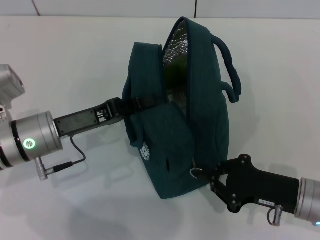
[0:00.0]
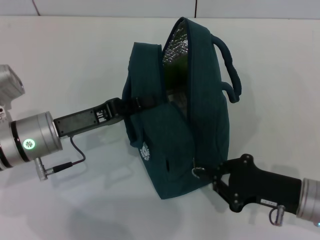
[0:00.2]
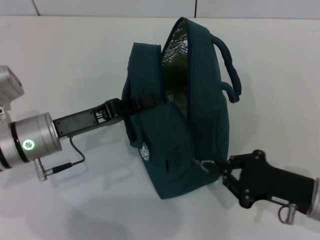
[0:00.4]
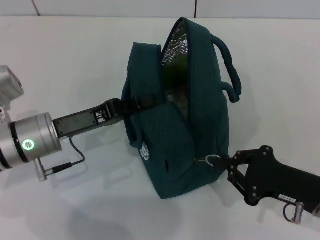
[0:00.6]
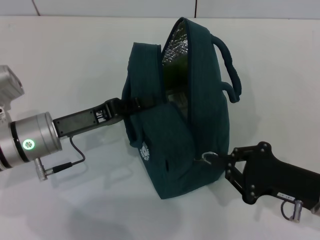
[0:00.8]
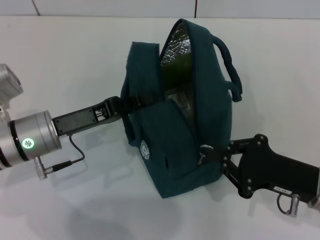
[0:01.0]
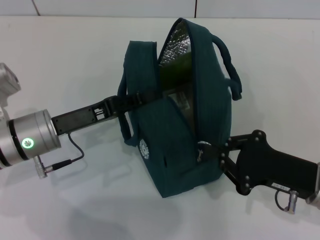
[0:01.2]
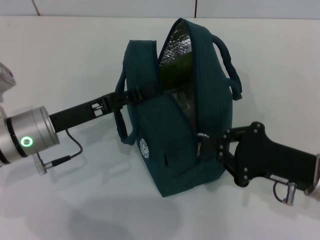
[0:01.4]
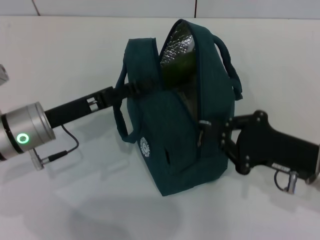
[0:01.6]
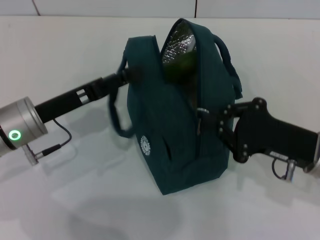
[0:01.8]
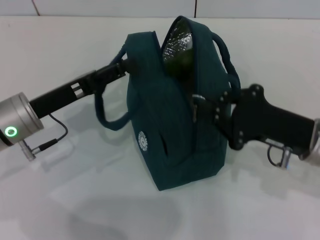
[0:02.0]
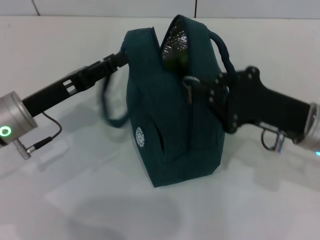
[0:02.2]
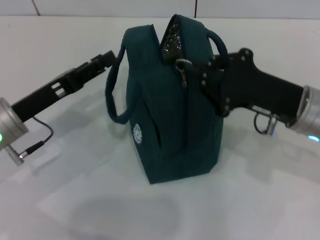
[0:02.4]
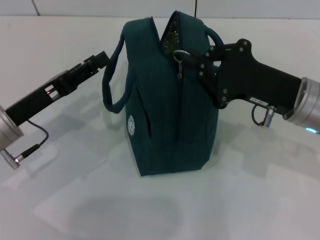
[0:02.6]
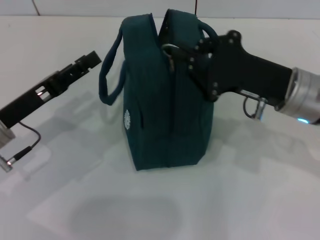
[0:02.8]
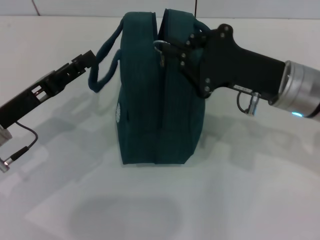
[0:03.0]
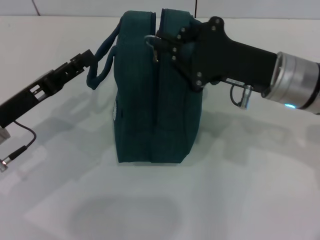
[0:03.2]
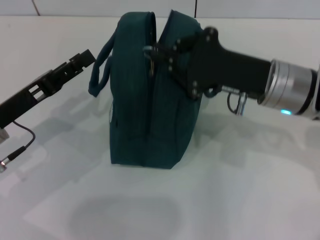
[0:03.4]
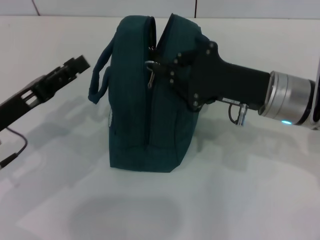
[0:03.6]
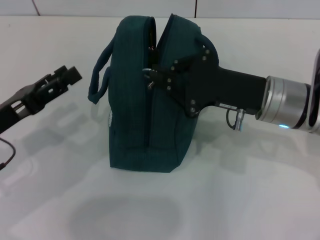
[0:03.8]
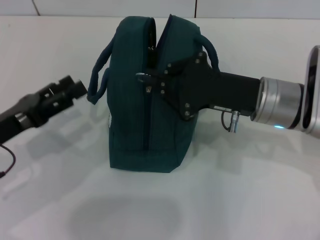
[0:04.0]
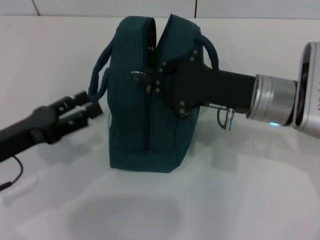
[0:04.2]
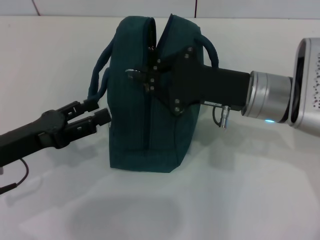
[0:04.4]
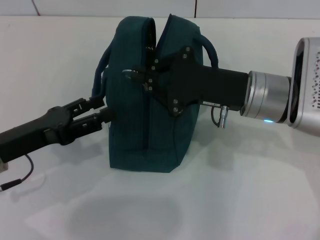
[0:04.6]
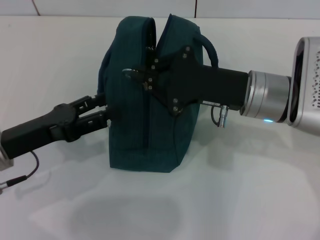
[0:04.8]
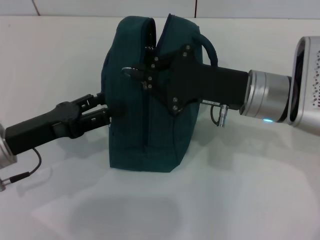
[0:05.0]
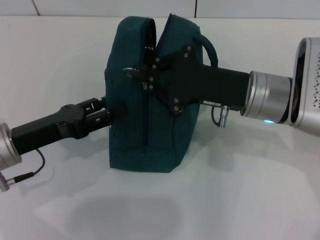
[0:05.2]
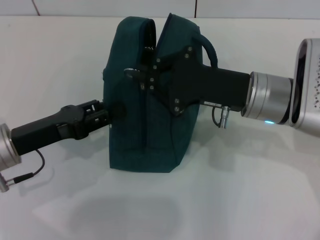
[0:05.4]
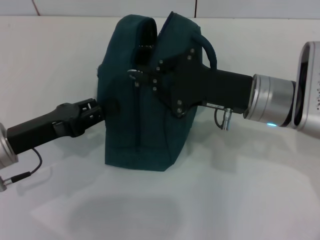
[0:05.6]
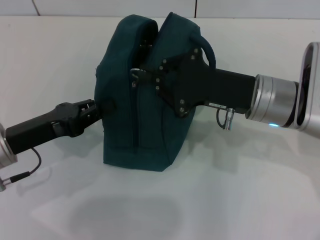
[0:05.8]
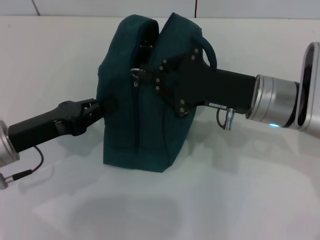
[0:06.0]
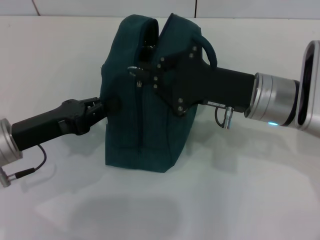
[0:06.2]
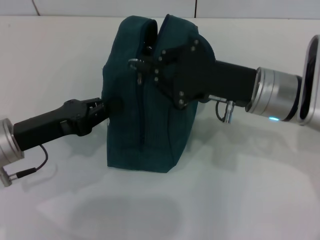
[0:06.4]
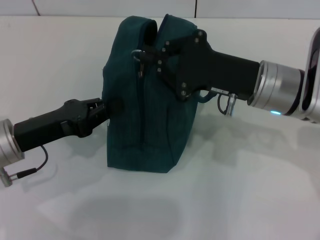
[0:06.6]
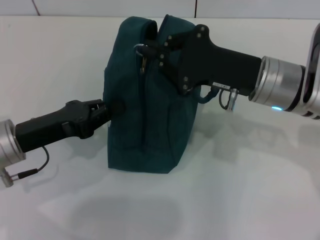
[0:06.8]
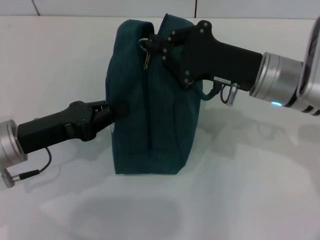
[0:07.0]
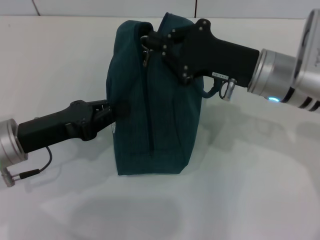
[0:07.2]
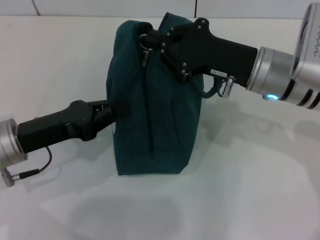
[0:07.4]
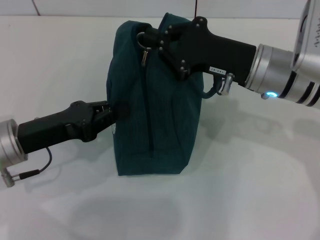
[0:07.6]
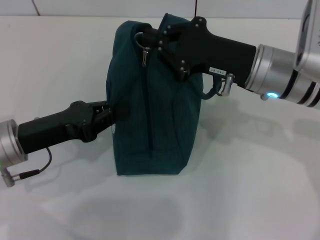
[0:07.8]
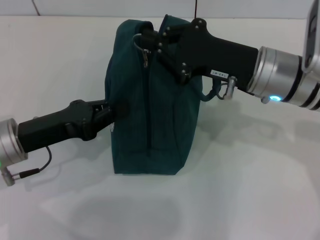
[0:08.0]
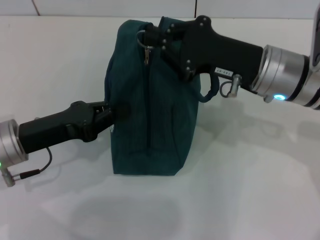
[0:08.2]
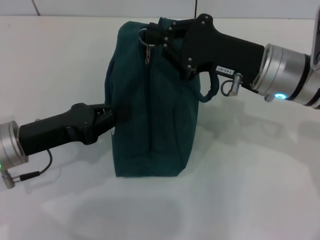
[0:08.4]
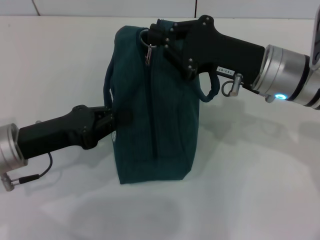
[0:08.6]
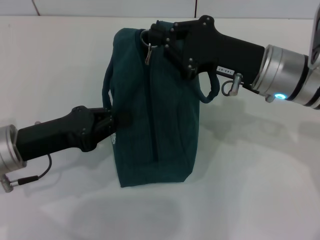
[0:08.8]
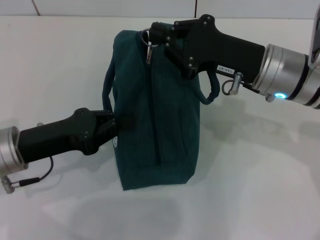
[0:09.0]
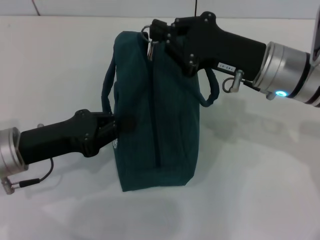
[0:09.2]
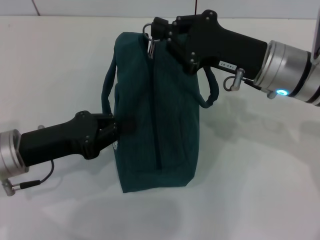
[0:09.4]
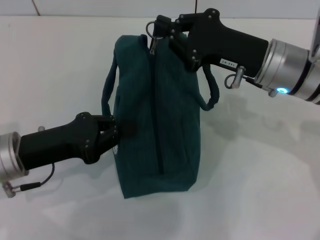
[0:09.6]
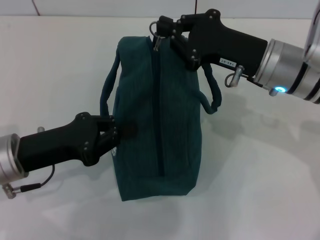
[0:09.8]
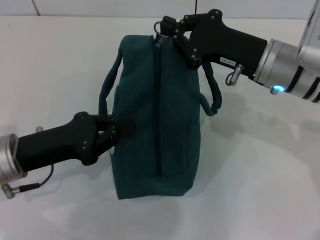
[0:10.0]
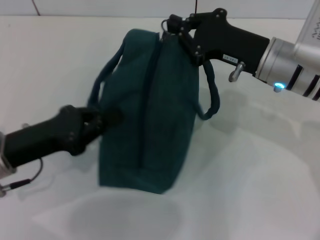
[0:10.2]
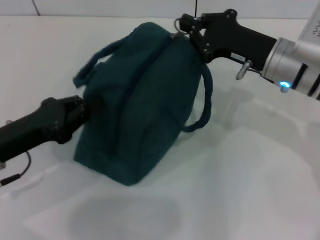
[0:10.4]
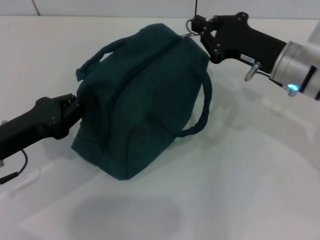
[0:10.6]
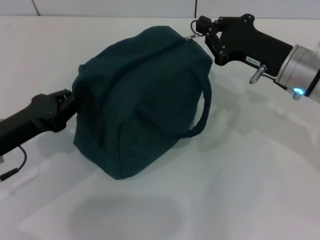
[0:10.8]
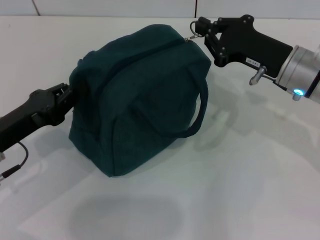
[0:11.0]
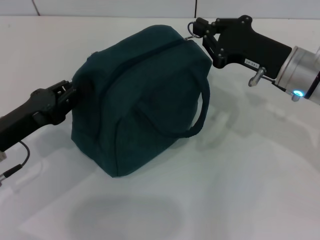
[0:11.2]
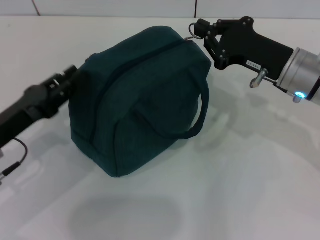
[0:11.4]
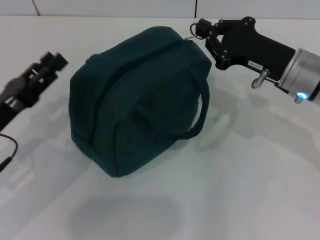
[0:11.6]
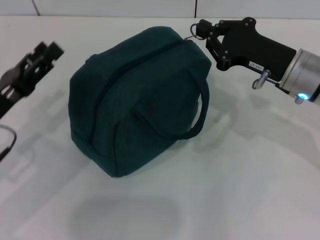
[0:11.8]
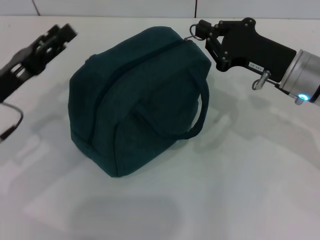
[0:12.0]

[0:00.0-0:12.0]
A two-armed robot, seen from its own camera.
Step, 0:00.0 to 0:02.0: Hold the lunch bag with your left hand.
0:00.0 to 0:01.6: The left gripper opens its fingers.
0:01.6 to 0:03.0: The right gripper heads forward, upward and to the left, covering roughly 10 cm, while the left gripper moves some 5 cm, and opens up.
0:04.4 to 0:06.0: The left gripper closes its fingers.
0:06.0 to 0:09.0: There are only small adjustments of the grippers.
0:10.4 to 0:12.0: The left gripper opens up.

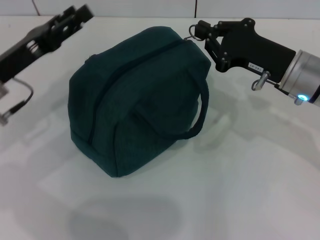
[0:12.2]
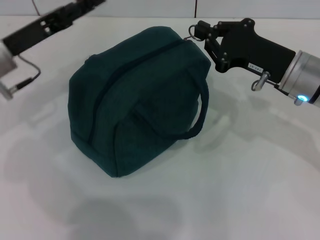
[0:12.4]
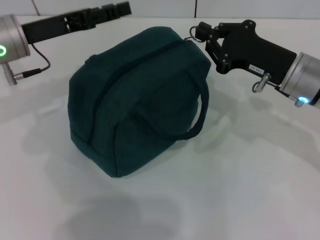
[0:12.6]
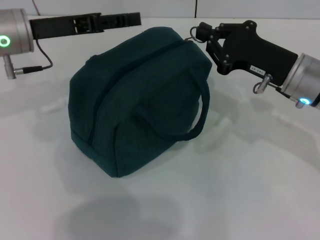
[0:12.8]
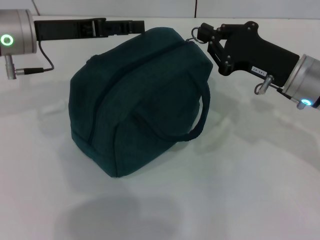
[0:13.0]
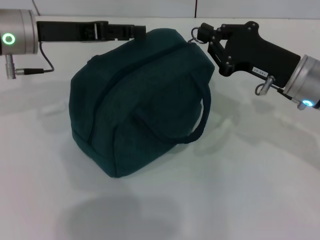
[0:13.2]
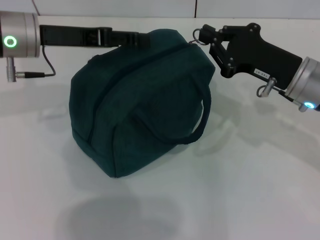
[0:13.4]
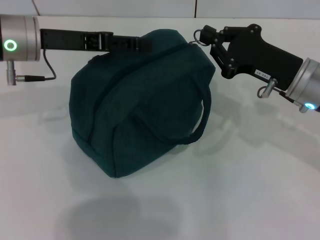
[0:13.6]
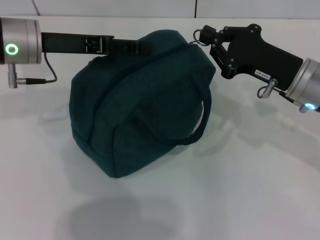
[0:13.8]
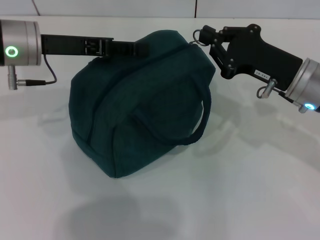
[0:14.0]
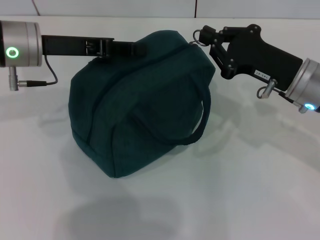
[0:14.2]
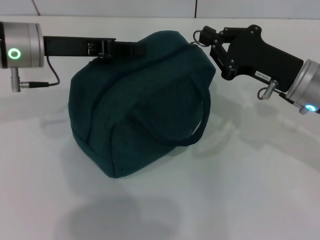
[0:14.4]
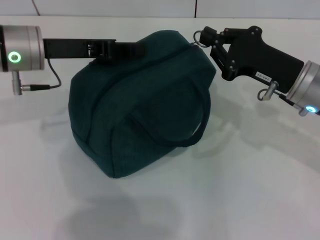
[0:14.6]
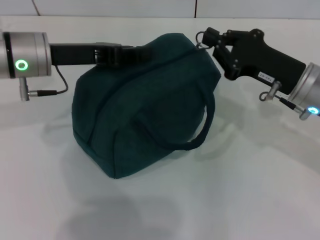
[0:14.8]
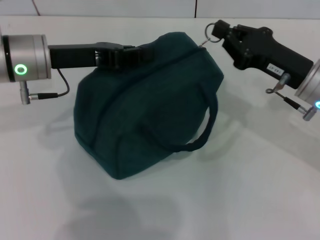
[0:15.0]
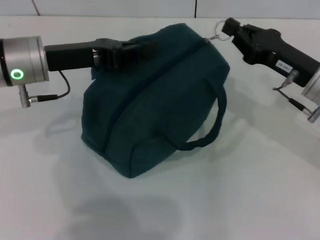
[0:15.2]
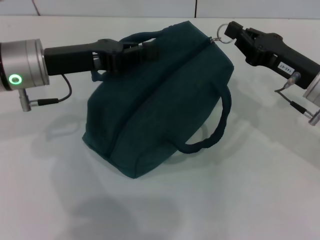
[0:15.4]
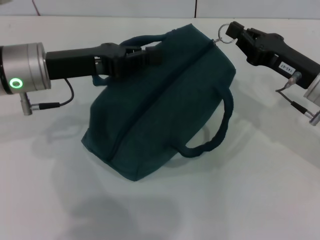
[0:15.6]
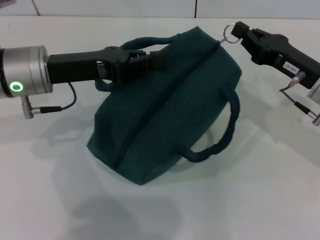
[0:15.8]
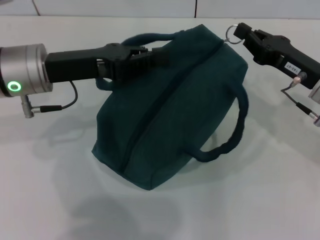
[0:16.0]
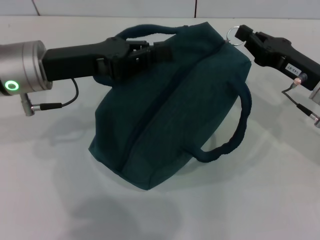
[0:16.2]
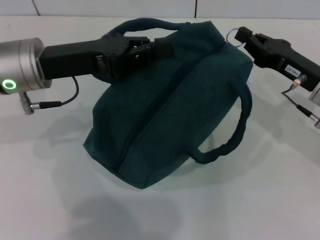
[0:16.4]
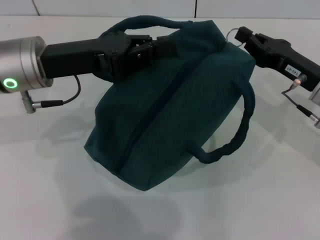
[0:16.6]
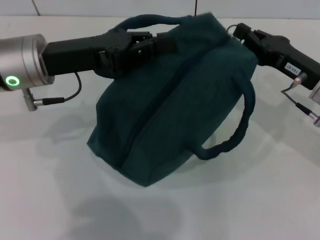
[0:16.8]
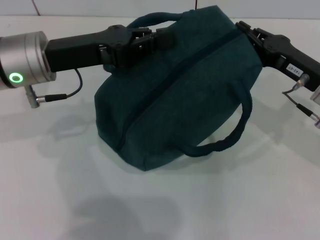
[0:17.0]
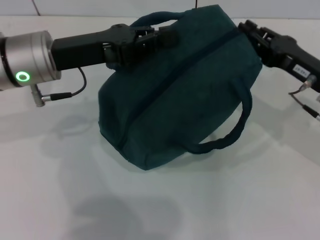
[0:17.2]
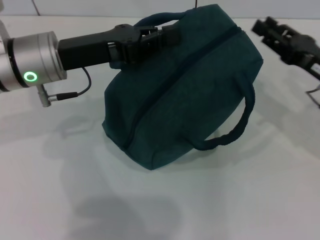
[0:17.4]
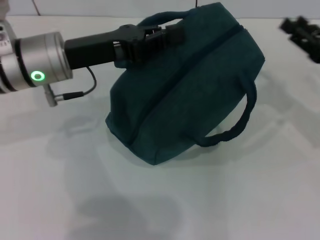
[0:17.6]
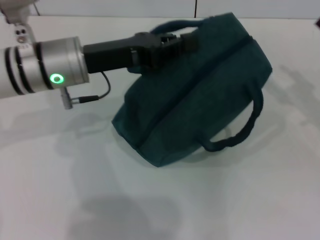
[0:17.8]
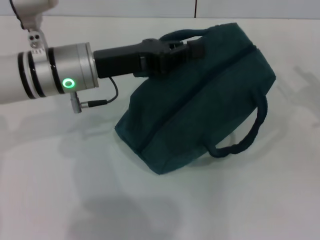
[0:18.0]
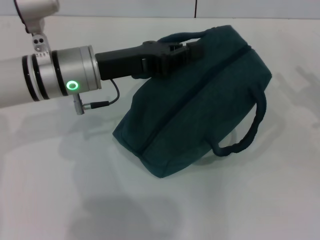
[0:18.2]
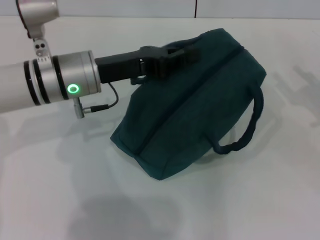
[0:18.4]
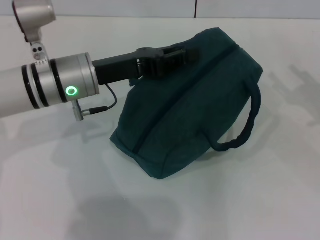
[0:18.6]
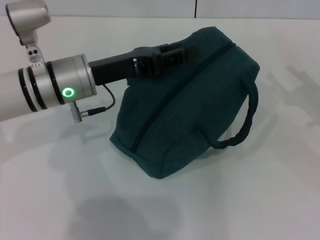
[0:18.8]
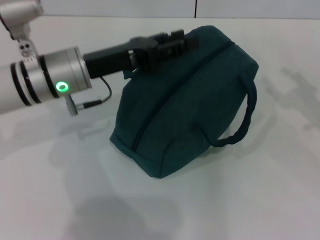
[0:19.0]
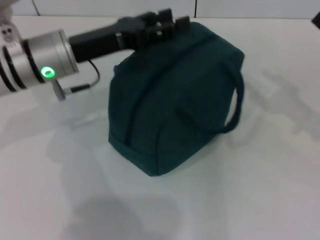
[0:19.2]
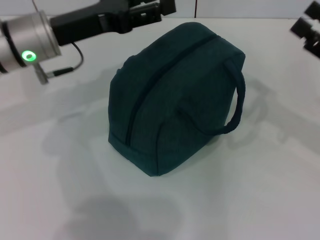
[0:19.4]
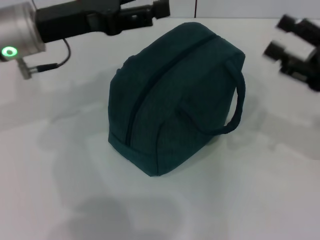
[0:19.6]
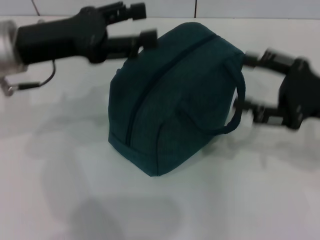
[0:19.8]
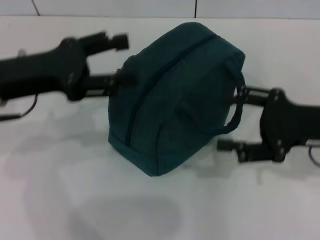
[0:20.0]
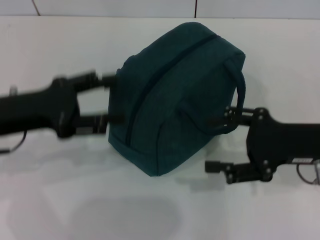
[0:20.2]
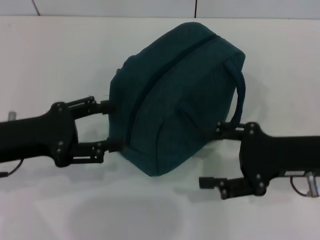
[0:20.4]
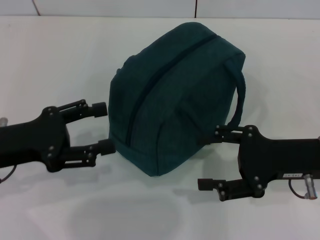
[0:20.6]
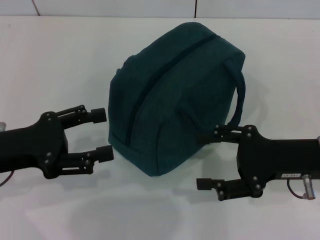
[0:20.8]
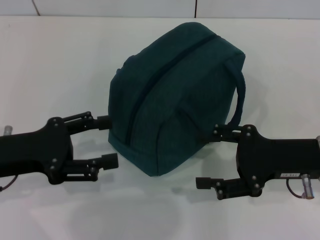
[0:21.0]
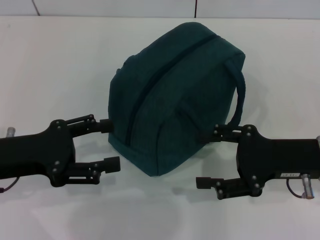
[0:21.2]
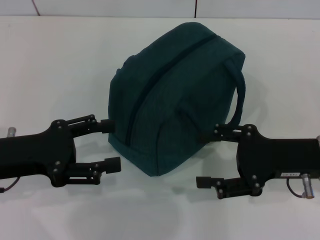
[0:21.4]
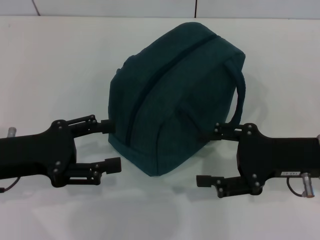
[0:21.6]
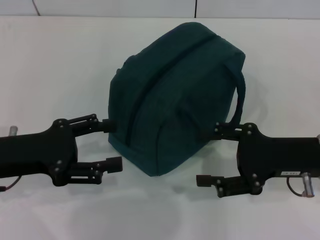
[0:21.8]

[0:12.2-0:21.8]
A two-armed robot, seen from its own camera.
Step, 0:12.2 to 0:17.2: Zip up the lunch bag with your right hand.
Step, 0:17.4 to 0:19.0: Hold the lunch bag with your left hand.
0:12.2 to 0:13.8: The left gripper travels forward and upward by approximately 10 cm.
0:13.8 to 0:15.4: The left gripper closes its fingers.
0:15.4 to 0:17.0: The grippers make only small movements.
0:17.0 to 0:18.6: The left gripper moves about 5 cm, while the right gripper shifts approximately 10 cm to the right, and opens.
0:18.6 to 0:20.2: The left gripper shifts approximately 15 cm to the left and backward, and opens up, while the right gripper is displaced to the left by roughly 10 cm.
0:20.2 to 0:21.8: There are only small adjustments of the grippers.
